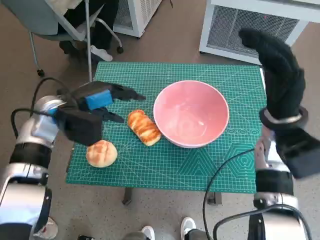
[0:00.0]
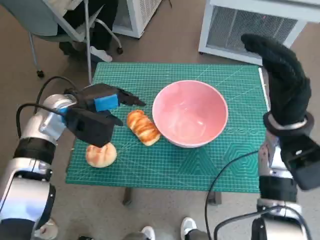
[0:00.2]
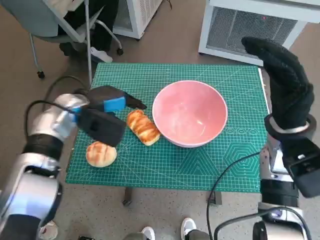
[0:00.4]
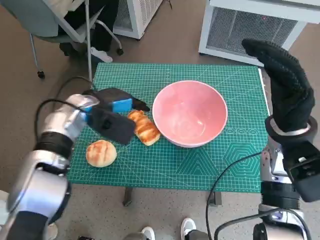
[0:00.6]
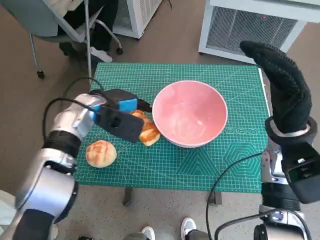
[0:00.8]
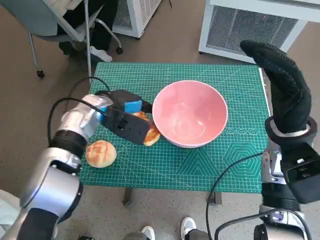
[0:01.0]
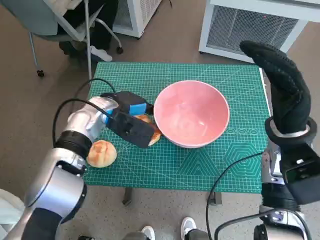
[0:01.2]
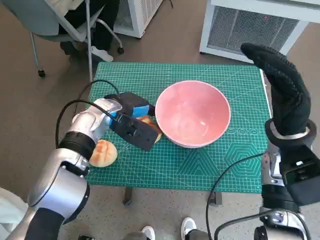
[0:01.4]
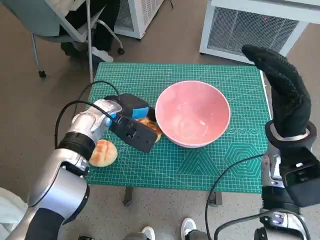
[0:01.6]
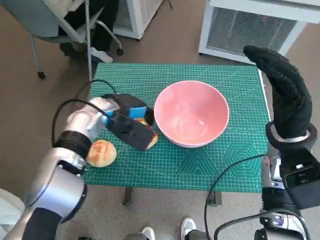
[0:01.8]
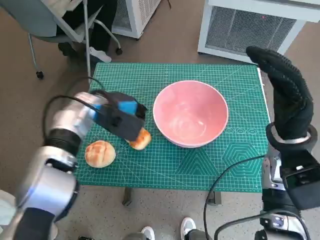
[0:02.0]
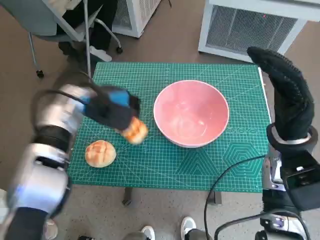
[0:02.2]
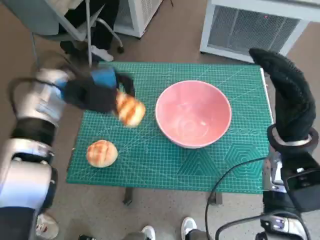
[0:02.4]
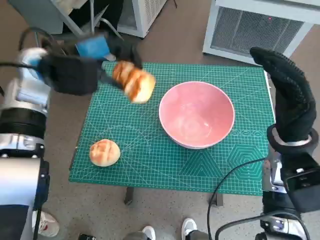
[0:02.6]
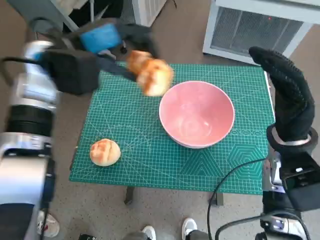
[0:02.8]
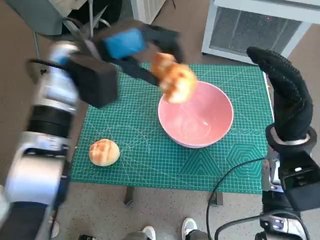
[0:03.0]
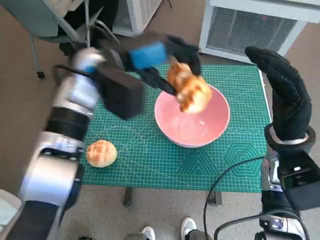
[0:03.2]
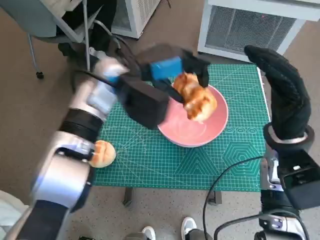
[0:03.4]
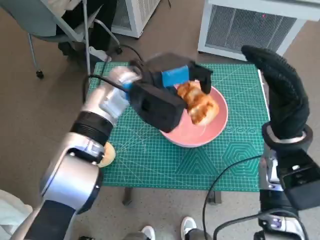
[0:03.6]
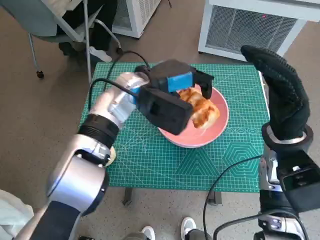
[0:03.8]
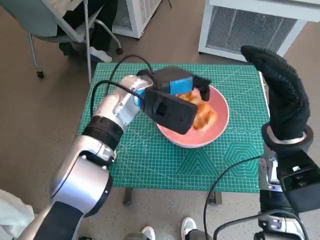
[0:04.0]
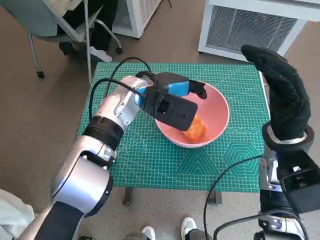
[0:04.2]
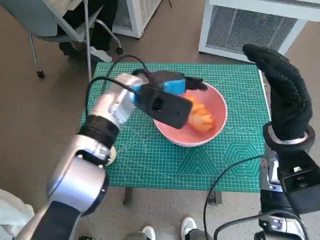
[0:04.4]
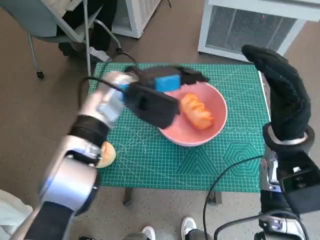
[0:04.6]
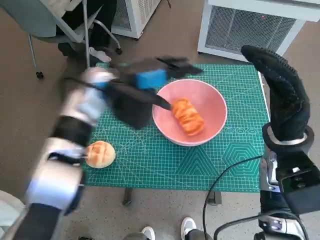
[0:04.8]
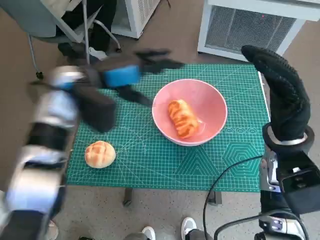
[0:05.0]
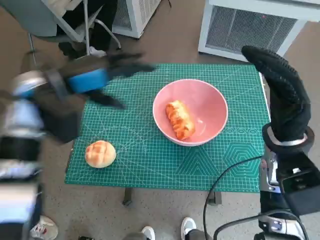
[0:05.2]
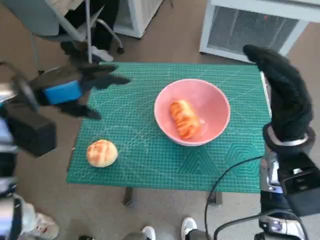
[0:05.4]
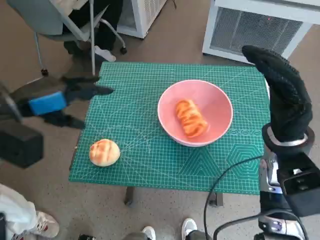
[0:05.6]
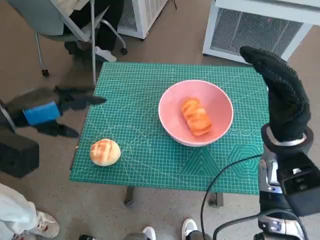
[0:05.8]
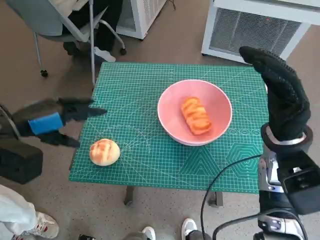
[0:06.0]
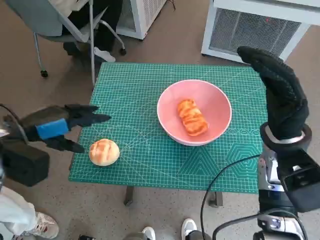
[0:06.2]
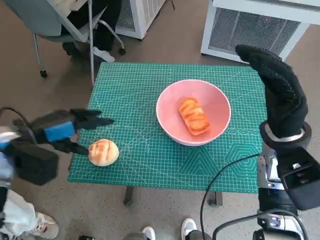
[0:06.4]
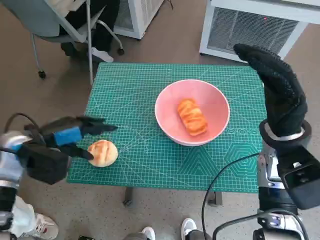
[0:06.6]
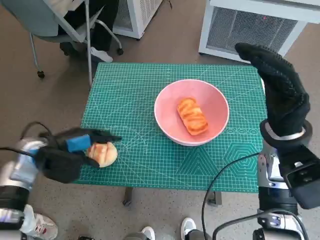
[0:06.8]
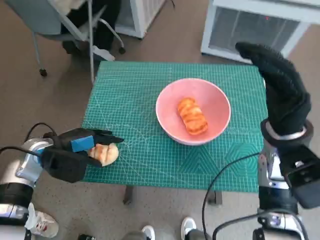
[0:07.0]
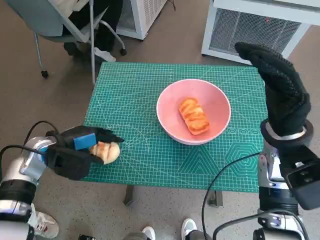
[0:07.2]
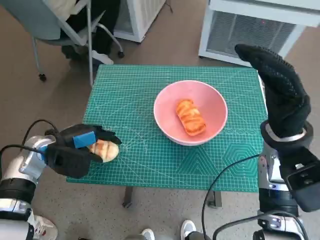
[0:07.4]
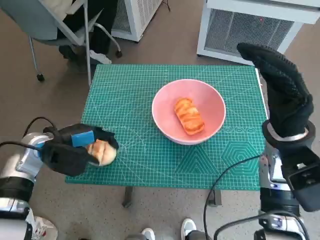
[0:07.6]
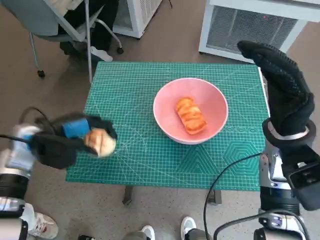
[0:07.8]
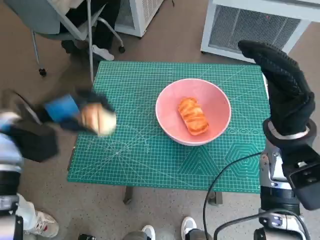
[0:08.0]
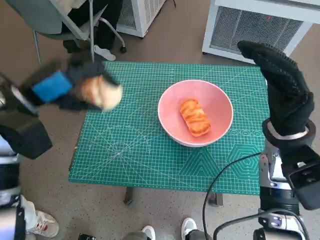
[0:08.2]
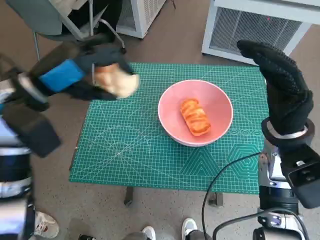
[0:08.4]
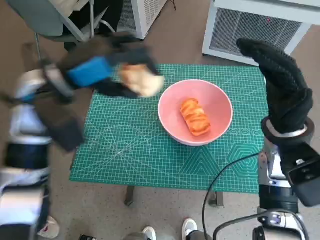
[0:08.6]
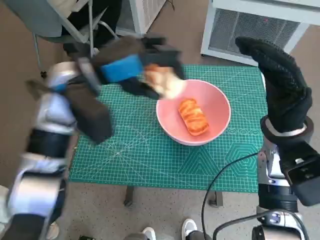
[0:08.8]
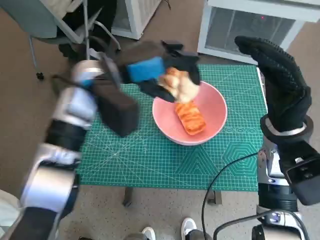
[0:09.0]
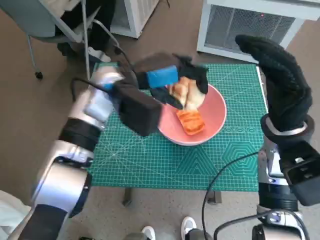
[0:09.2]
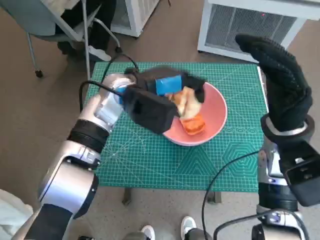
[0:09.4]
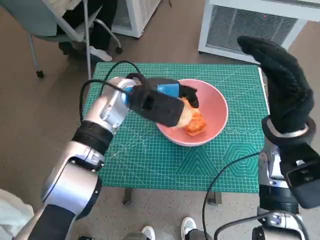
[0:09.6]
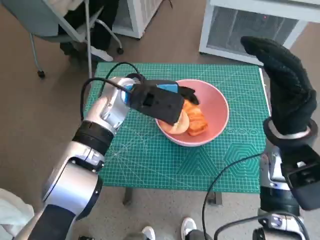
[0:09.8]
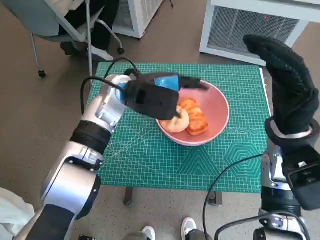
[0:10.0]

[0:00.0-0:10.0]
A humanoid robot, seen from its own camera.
Task of the whole recording: Push the bowl to the center of the table and put the bread into the bowl.
Step, 0:00.0 to 0:01.6: Grasp the long bread with left hand.
Step, 0:02.0 to 0:04.6: Place the long bread in pink bowl with left hand.
Step, 0:04.8 to 0:07.2: Grasp the round bread with left hand.
0:00.0 to 0:01.4: The left hand moves to the right, some 10 cm.
0:01.4 to 0:02.8: The left hand shifts some 15 cm upward and to the left.
0:02.8 to 0:04.2: The left hand goes some 15 cm to the right and downward.
0:04.2 to 0:05.8: The left hand goes about 25 cm to the left and backward.
0:05.8 to 0:07.2: The left hand travels downward by about 15 cm.
0:07.2 to 0:08.6: The left hand travels upward and to the right by roughly 20 cm.
0:08.6 to 0:10.0: The left hand moves to the right, forward and downward, about 15 cm.

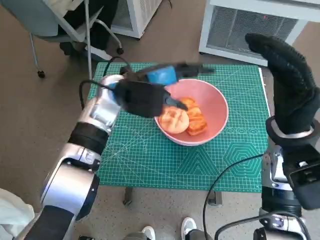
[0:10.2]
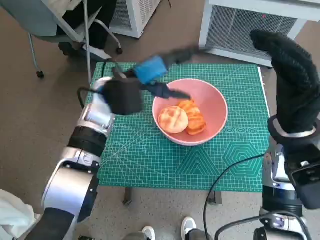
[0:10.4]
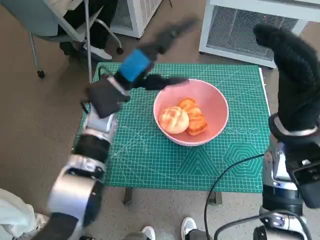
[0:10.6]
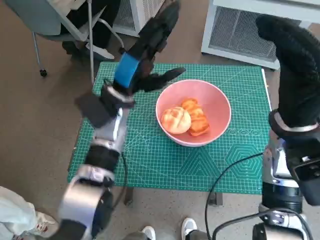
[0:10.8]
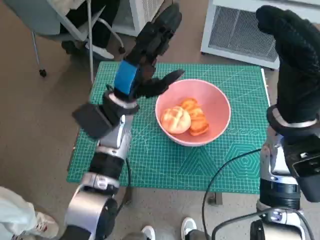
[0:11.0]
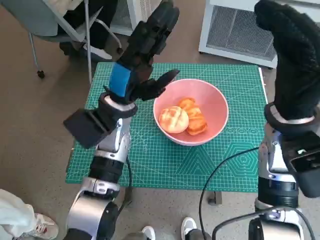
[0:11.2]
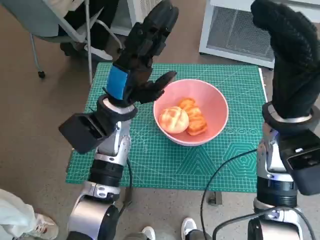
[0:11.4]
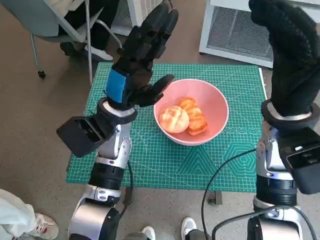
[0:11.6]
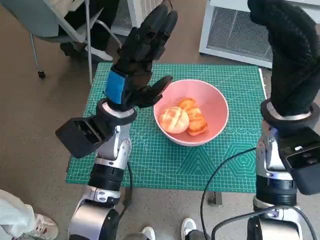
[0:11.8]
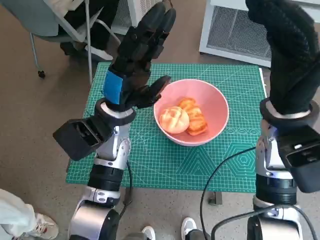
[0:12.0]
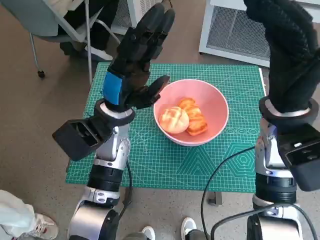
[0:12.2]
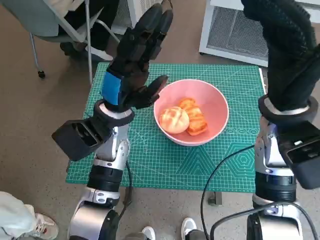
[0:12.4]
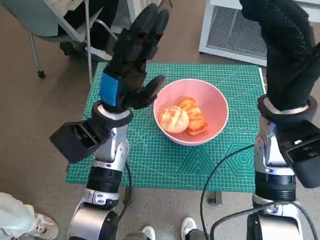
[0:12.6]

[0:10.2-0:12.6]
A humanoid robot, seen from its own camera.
Task of the whole recording: Push the bowl to the center of the table and put the bread into the bowl.
0:10.2 to 0:11.4: The left hand moves some 5 cm.
0:11.4 to 0:12.6: There are only small adjustments of the hands.

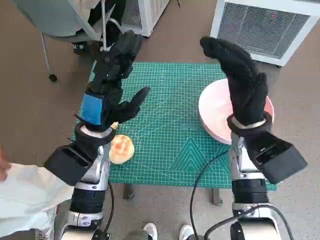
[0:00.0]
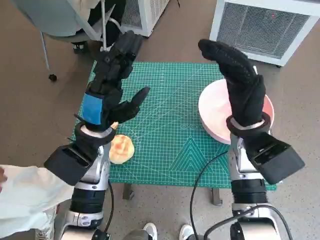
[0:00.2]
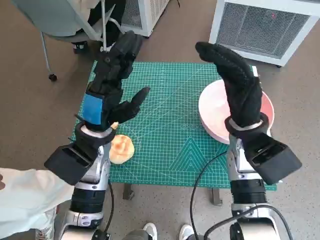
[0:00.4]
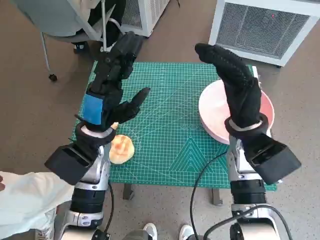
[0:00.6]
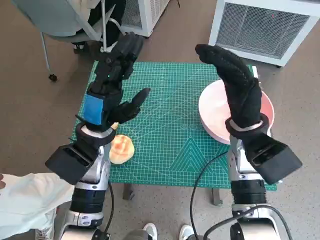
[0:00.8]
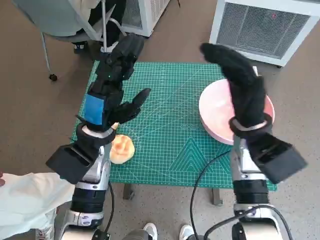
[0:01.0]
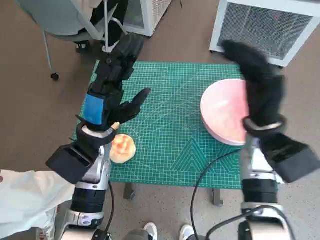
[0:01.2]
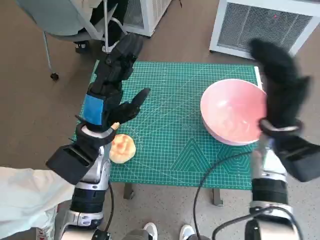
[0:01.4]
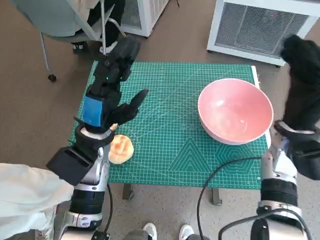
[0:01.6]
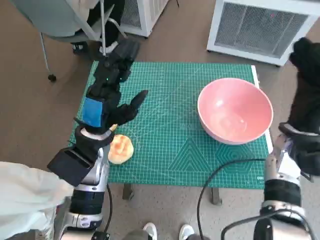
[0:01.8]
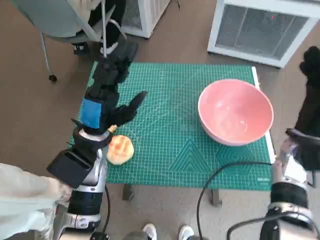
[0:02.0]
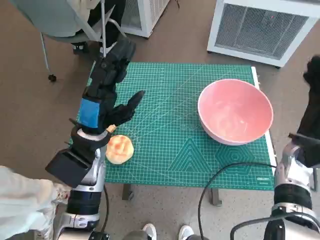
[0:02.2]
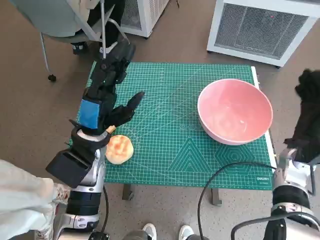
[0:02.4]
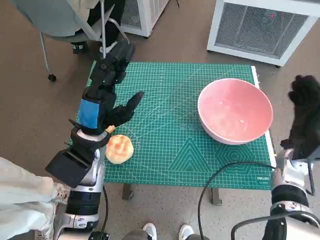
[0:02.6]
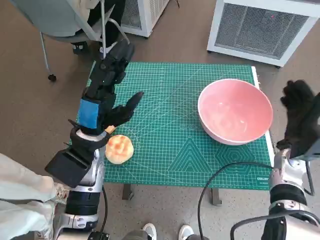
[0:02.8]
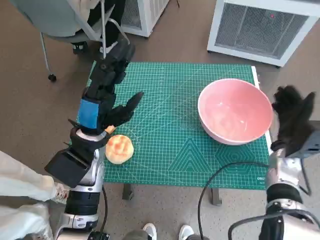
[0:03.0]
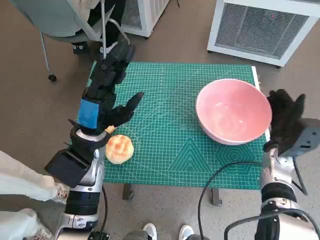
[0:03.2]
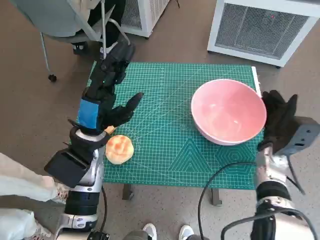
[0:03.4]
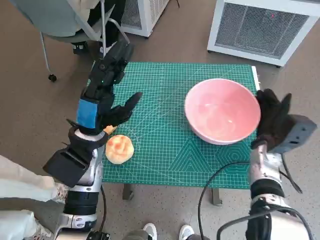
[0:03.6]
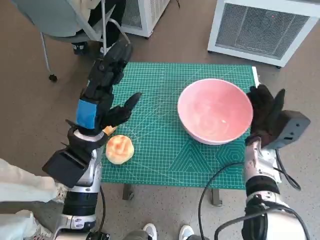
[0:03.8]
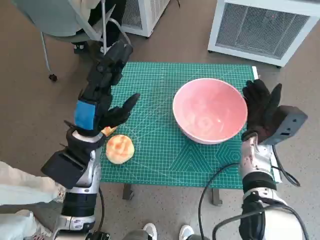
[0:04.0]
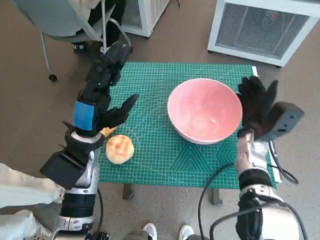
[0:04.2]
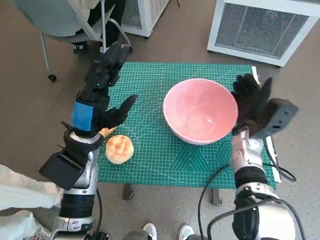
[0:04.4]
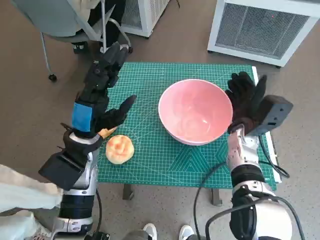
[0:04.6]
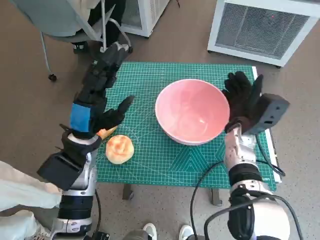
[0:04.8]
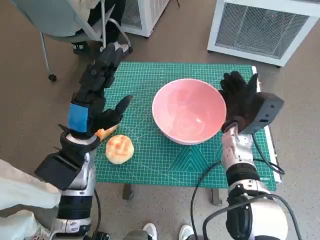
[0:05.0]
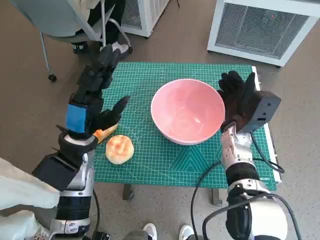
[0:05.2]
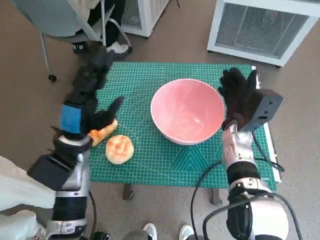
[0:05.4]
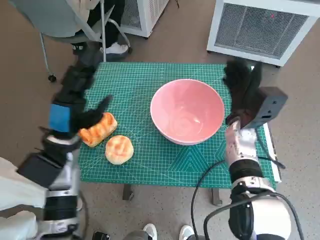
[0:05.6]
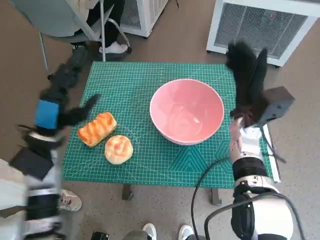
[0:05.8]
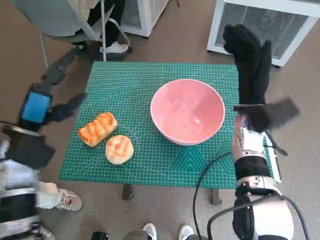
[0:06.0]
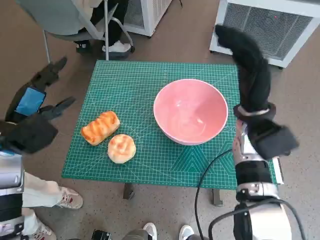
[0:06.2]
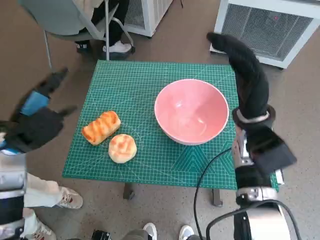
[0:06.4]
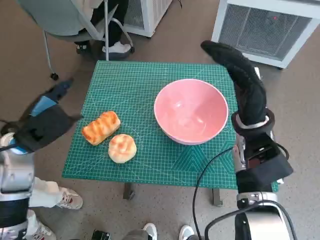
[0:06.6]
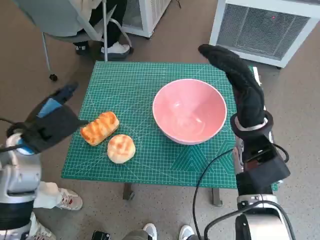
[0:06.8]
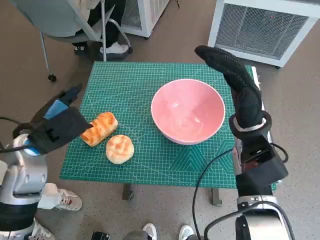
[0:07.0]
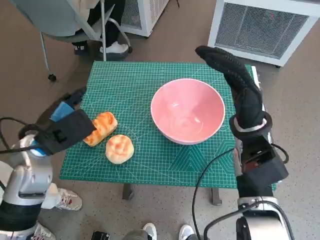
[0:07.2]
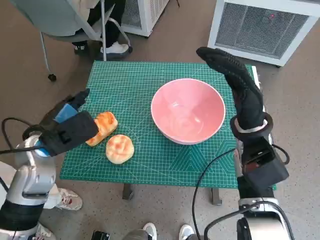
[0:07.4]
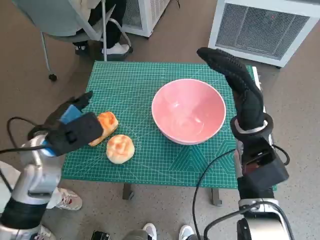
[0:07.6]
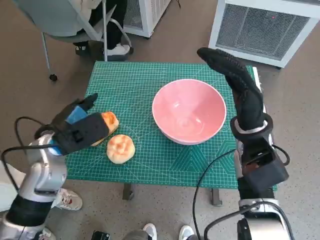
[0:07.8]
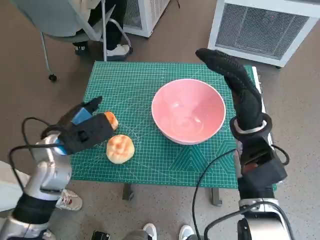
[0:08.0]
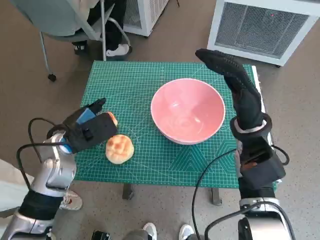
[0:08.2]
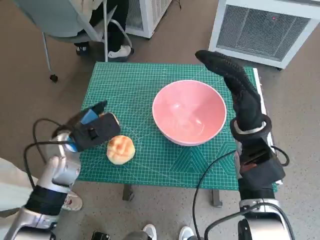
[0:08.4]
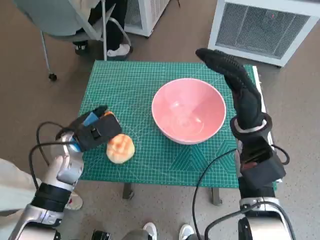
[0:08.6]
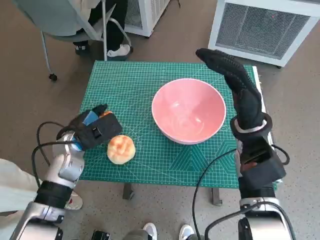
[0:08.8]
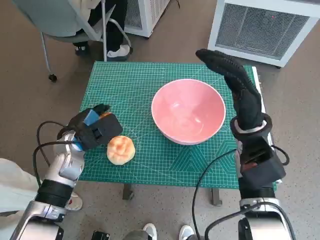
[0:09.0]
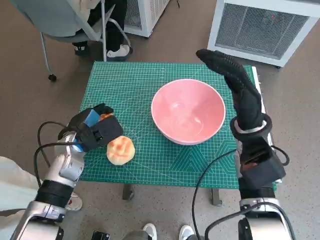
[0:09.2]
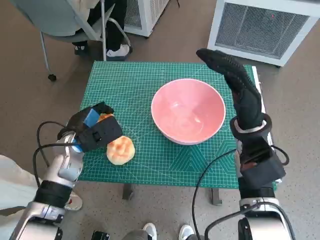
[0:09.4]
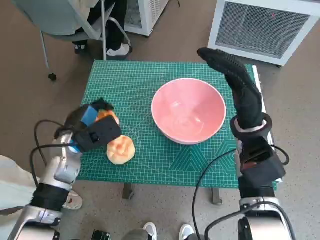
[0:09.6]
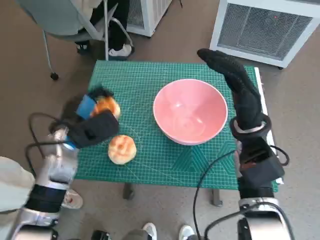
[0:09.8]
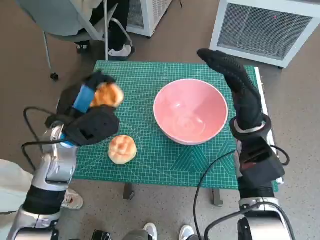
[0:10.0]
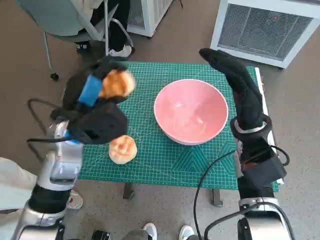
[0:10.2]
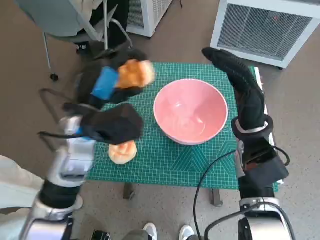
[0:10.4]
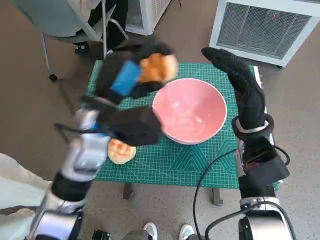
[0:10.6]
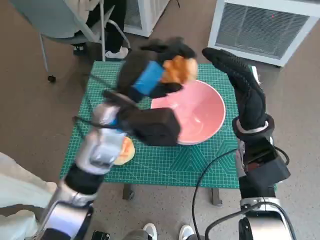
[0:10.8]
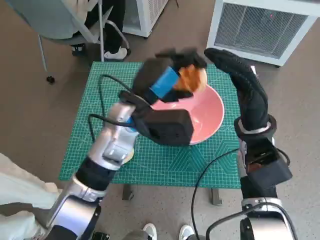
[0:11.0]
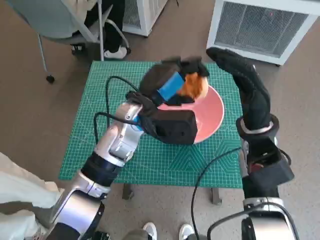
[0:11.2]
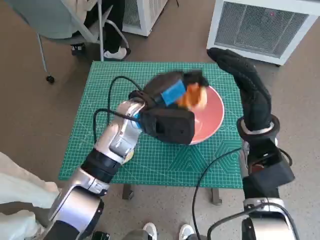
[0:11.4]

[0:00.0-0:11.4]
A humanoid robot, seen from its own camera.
Task of the whole recording: Push the bowl to the center of the table and put the bread into the bowl.
Step, 0:00.0 to 0:05.8: Move the pink bowl to the center of table with right hand.
Step, 0:06.0 to 0:08.6: Grasp the long bread with left hand.
0:01.4 to 0:02.8: The right hand heads downward and to the right, covering about 10 cm.
0:02.8 to 0:04.2: The right hand goes approximately 10 cm to the left.
0:05.6 to 0:07.2: The right hand goes about 5 cm upward.
0:07.2 to 0:08.6: The left hand travels downward by about 5 cm.
0:10.0 to 0:11.4: The left hand heads to the right, covering about 15 cm.
